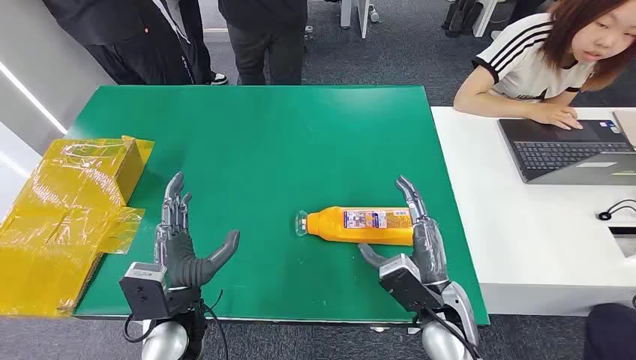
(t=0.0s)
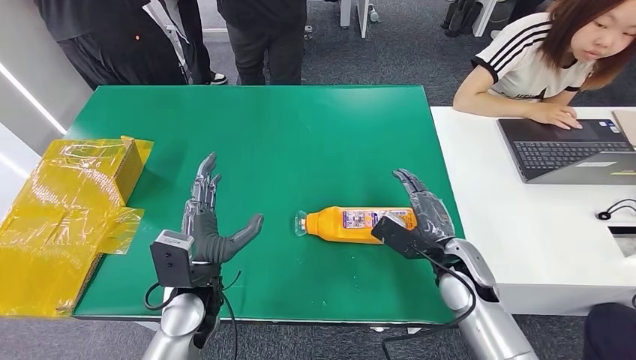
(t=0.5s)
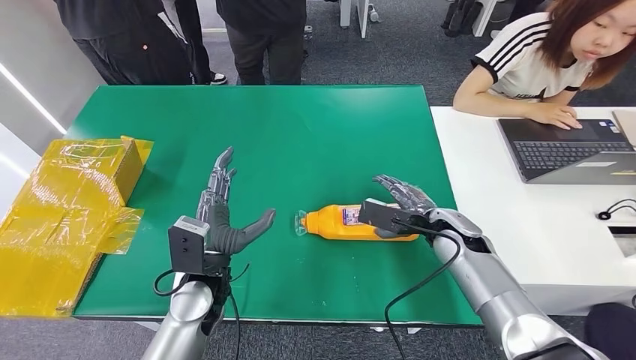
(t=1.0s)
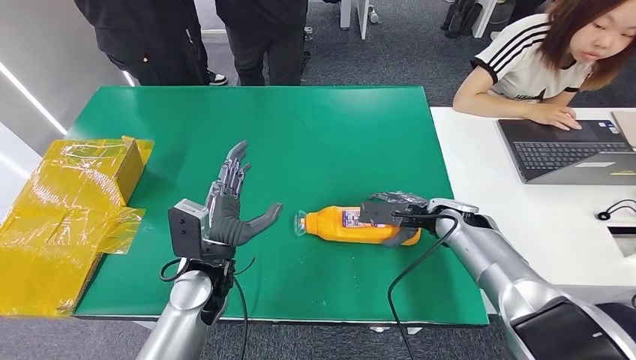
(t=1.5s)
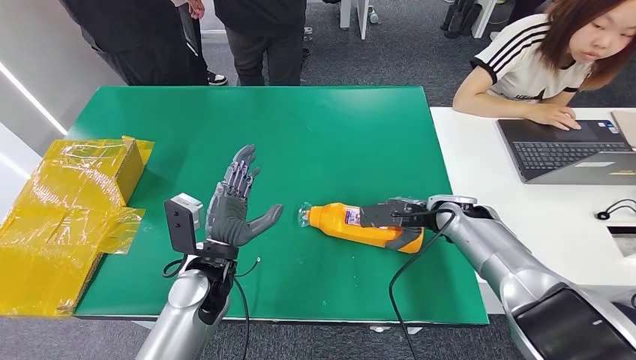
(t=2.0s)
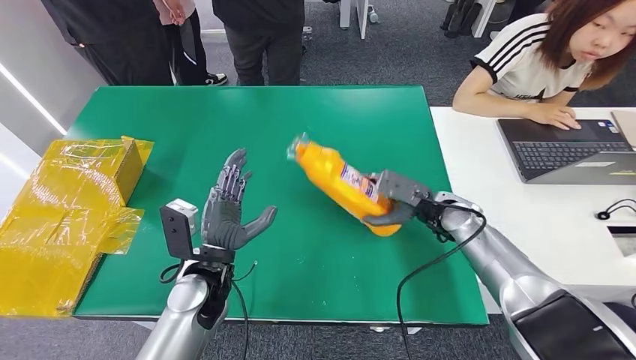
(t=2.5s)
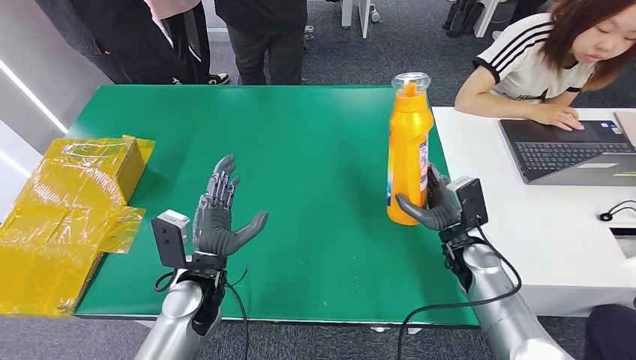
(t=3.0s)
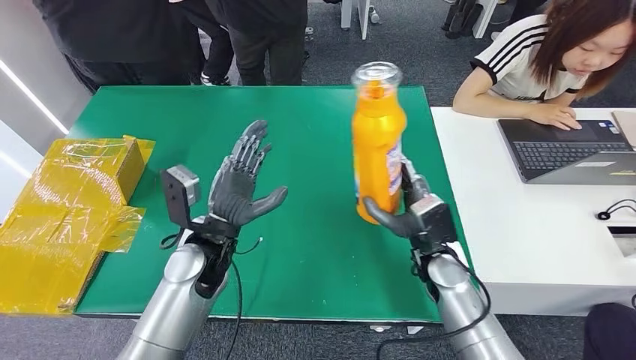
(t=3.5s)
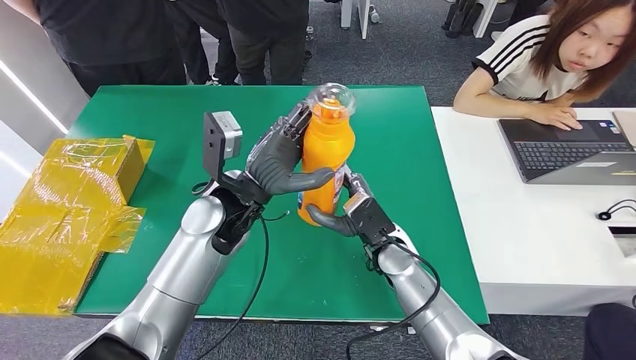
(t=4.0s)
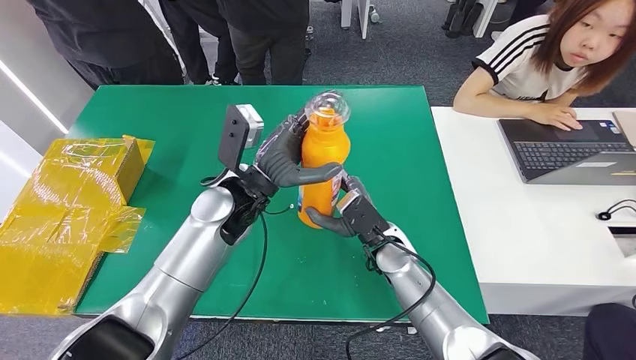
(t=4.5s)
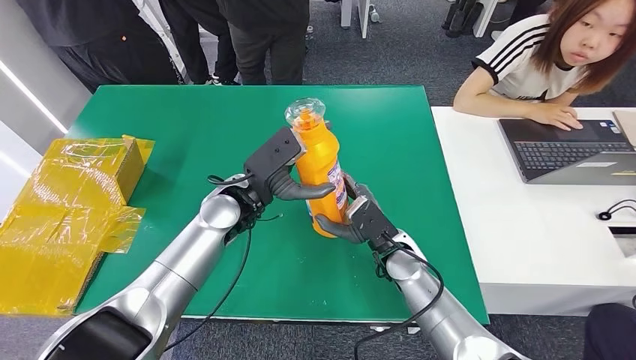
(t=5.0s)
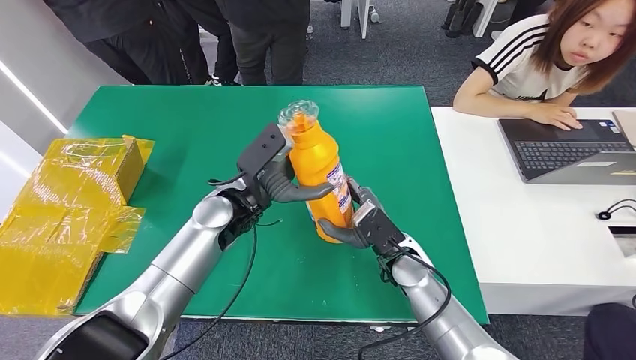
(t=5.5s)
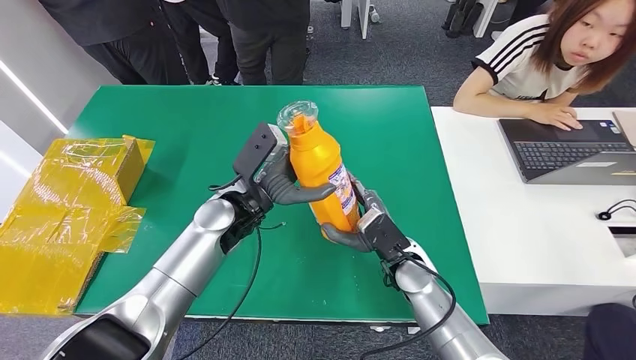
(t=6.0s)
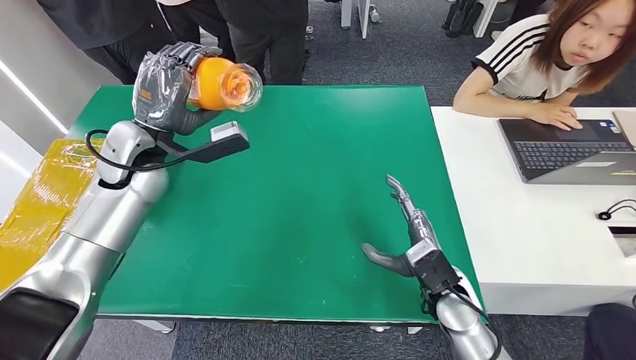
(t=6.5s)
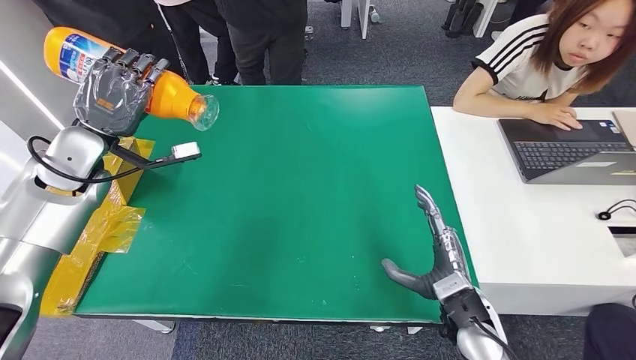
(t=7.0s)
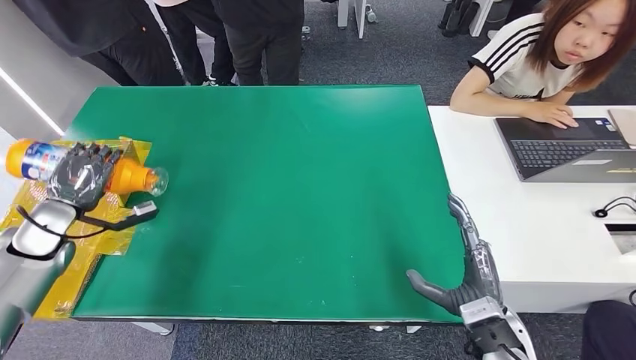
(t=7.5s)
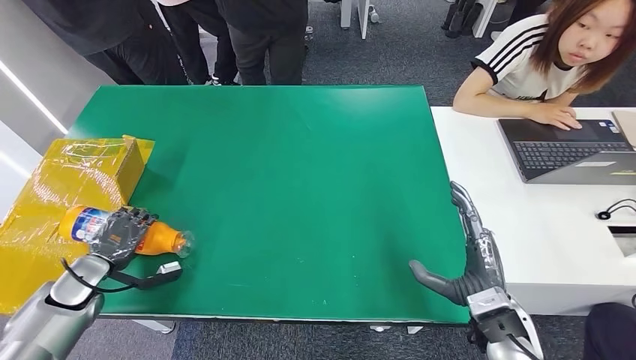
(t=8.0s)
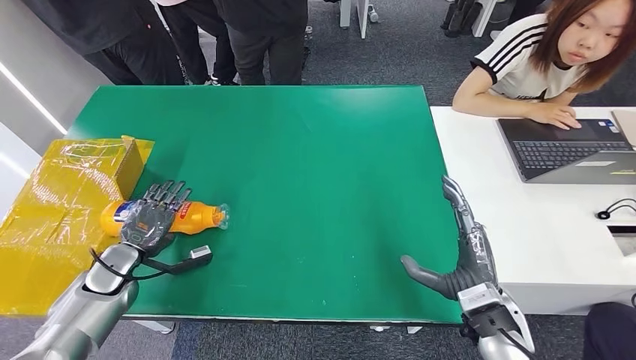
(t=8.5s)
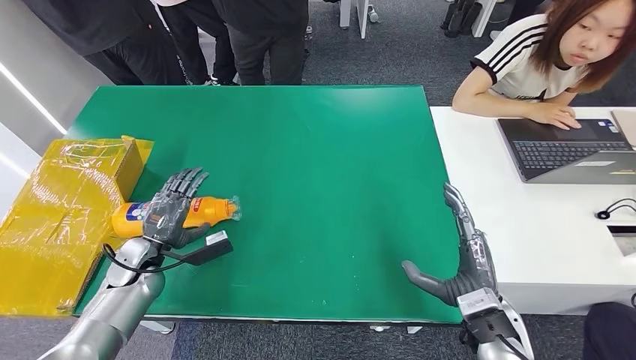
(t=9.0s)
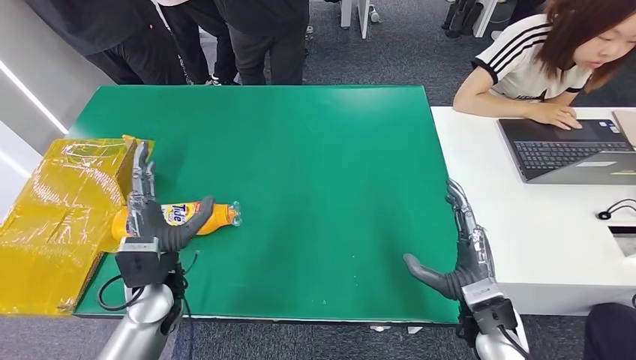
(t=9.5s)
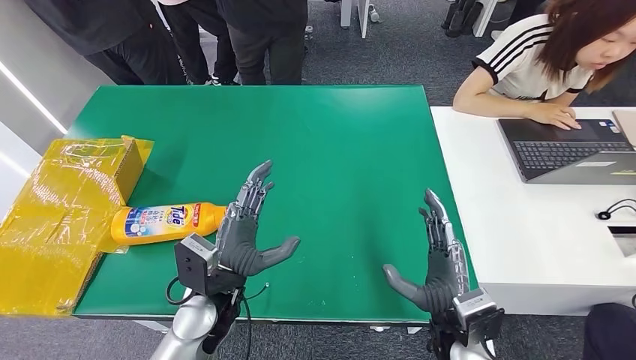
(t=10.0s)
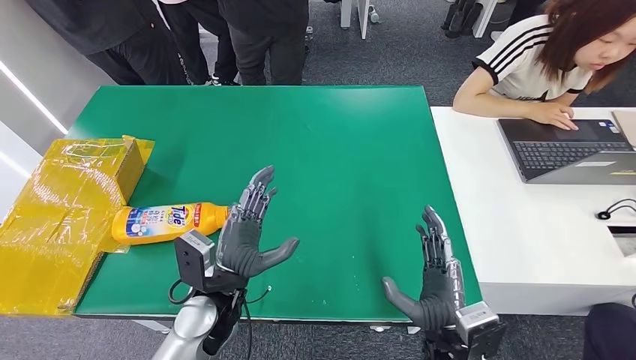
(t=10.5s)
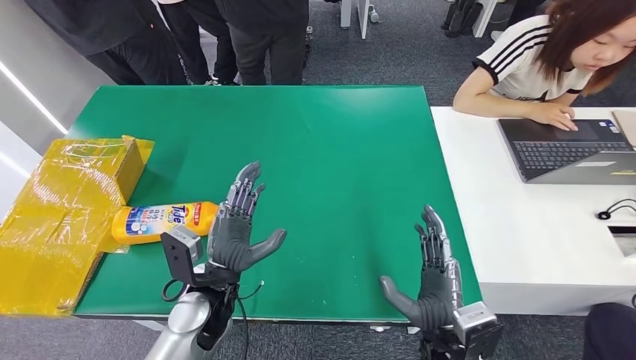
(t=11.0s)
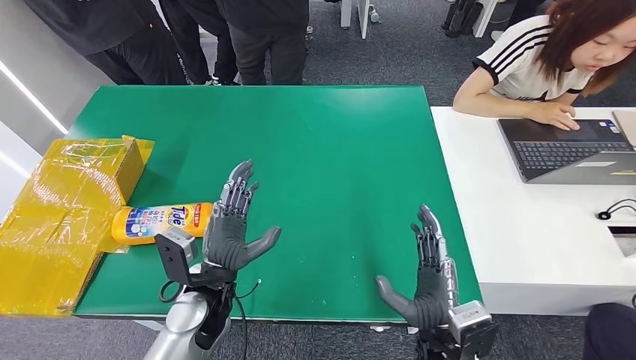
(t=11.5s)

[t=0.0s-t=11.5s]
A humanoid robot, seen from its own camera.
Step, t=0.0s to t=4.0s: Pick up the bottle from the table.
Step, t=4.5s to t=11.5s: Turn the bottle to the front side.
t=4.0s to t=6.0s: The left hand changes place by roughly 5 cm.
t=9.5s to t=11.5s: The left hand goes about 10 cm to the right; the right hand travels to the left by about 10 cm.
